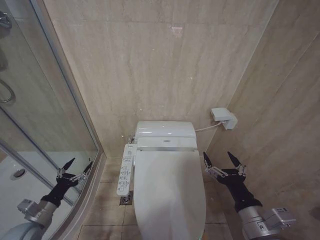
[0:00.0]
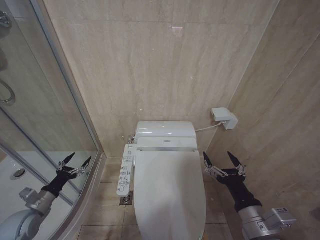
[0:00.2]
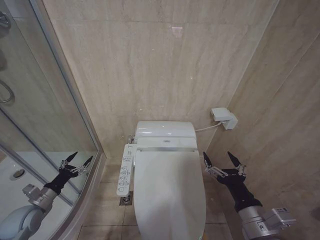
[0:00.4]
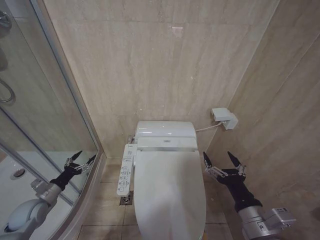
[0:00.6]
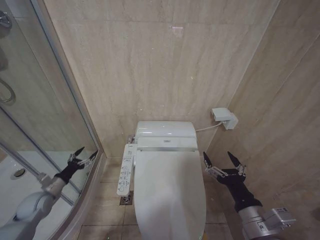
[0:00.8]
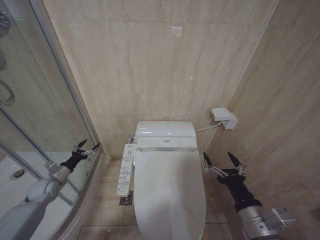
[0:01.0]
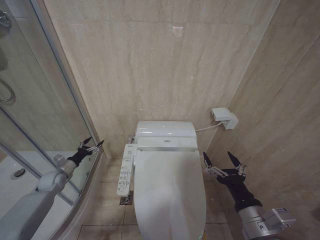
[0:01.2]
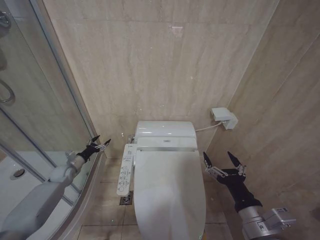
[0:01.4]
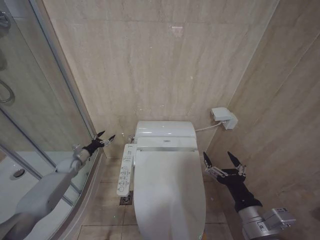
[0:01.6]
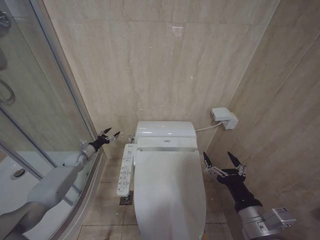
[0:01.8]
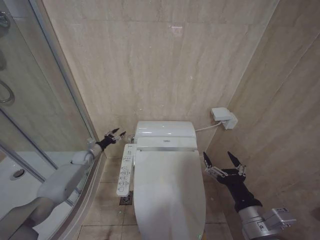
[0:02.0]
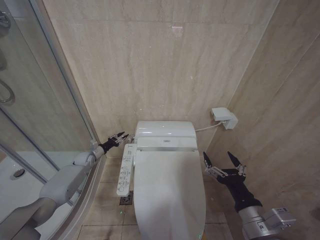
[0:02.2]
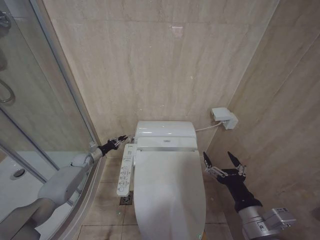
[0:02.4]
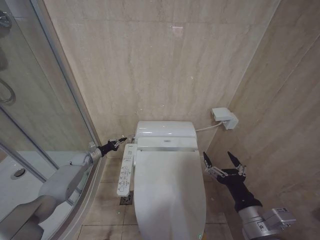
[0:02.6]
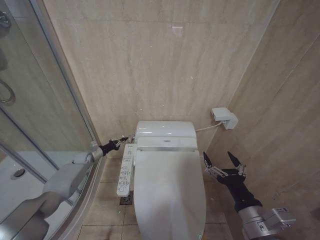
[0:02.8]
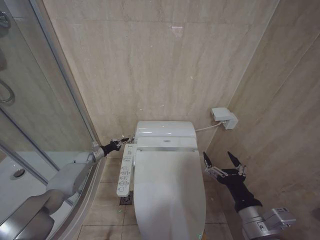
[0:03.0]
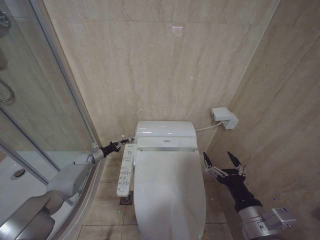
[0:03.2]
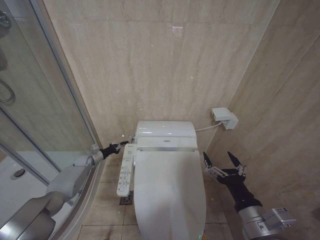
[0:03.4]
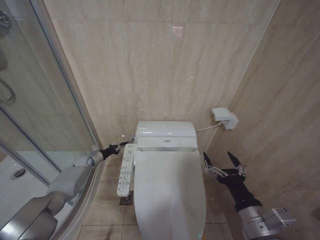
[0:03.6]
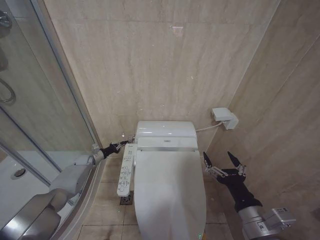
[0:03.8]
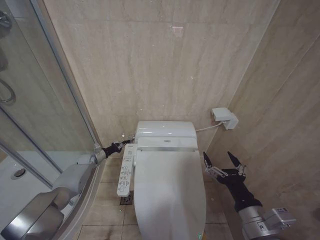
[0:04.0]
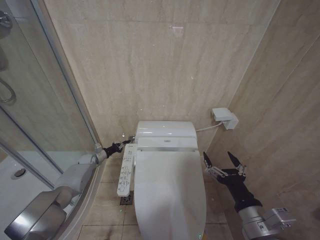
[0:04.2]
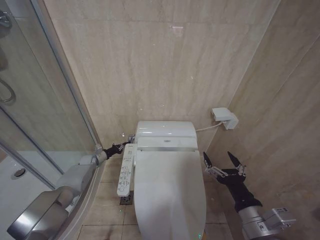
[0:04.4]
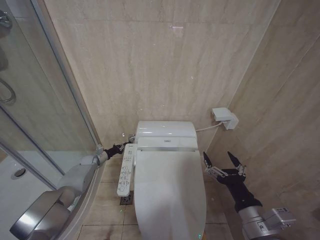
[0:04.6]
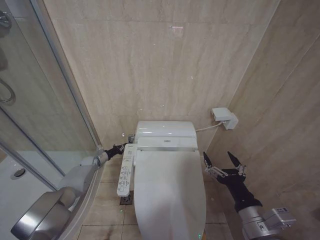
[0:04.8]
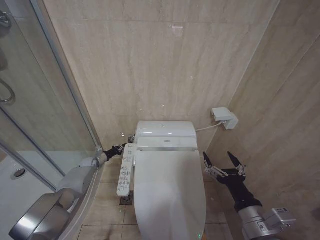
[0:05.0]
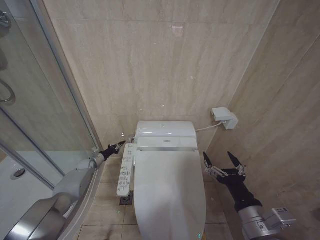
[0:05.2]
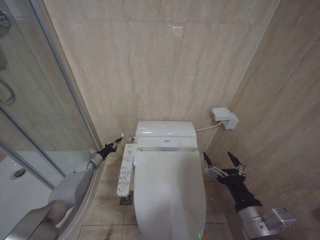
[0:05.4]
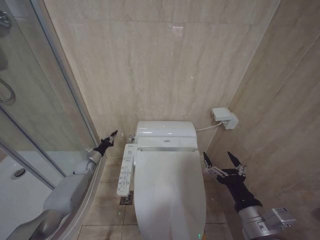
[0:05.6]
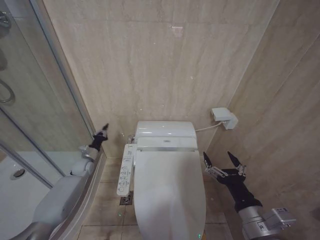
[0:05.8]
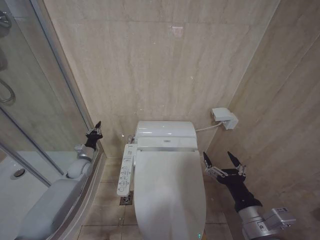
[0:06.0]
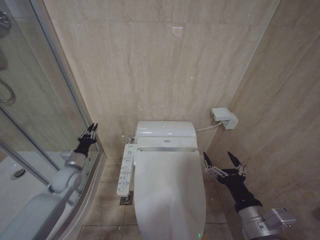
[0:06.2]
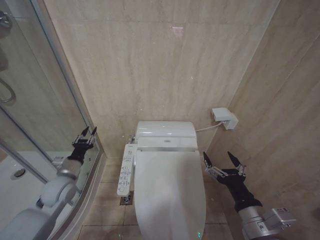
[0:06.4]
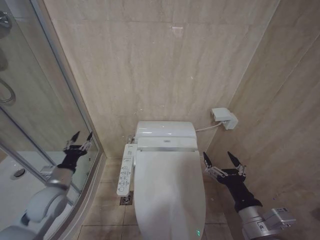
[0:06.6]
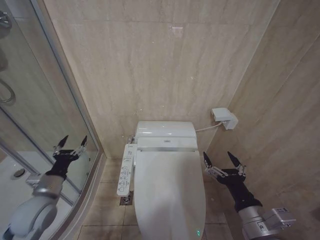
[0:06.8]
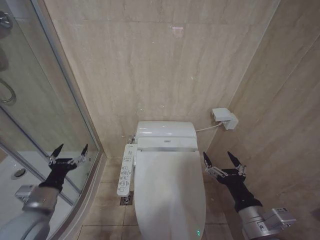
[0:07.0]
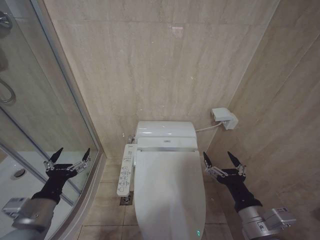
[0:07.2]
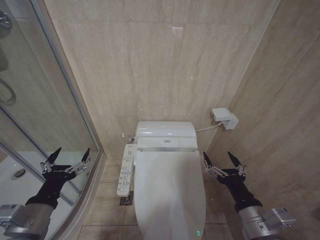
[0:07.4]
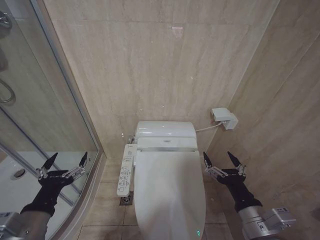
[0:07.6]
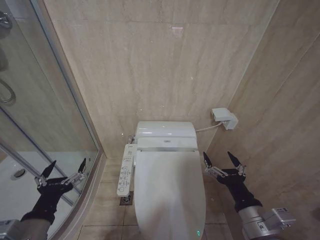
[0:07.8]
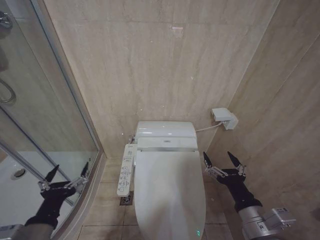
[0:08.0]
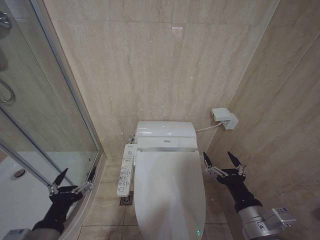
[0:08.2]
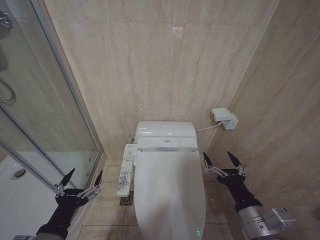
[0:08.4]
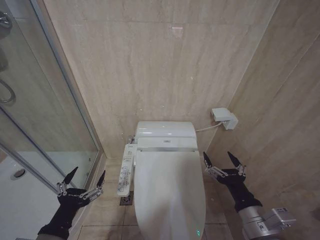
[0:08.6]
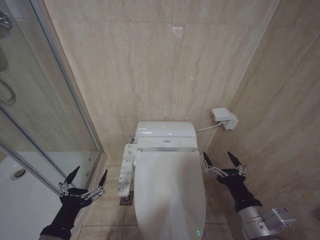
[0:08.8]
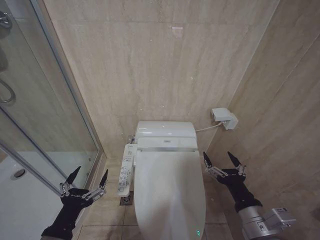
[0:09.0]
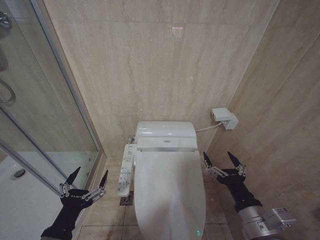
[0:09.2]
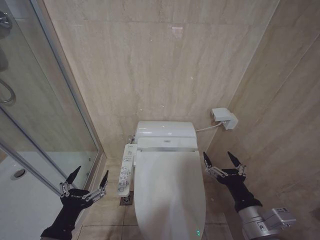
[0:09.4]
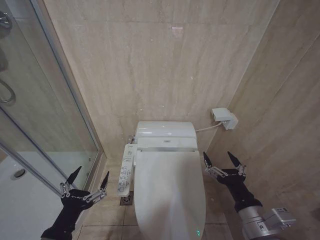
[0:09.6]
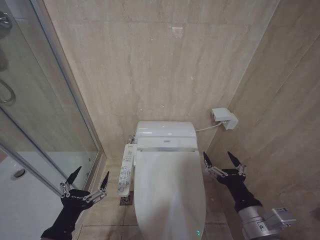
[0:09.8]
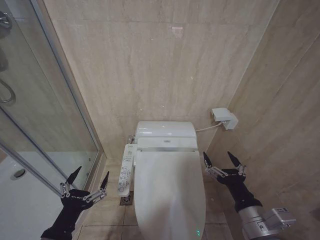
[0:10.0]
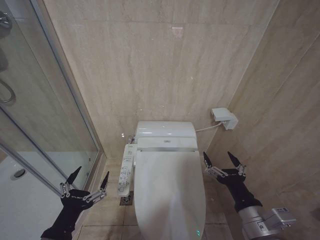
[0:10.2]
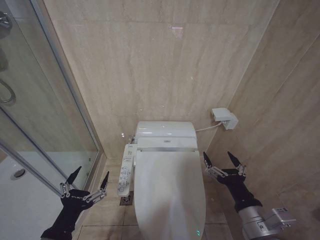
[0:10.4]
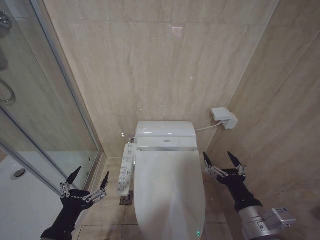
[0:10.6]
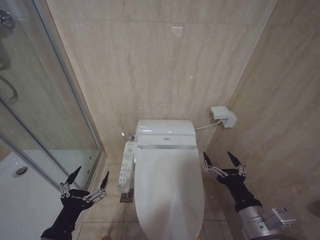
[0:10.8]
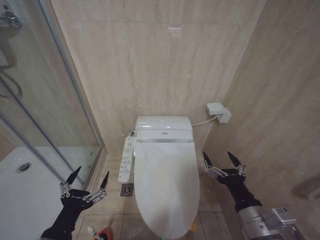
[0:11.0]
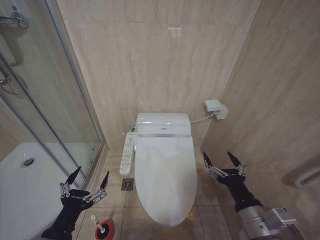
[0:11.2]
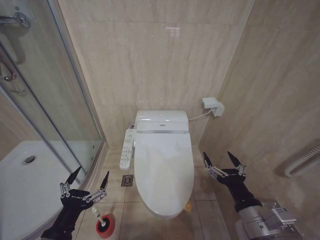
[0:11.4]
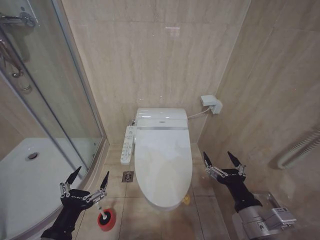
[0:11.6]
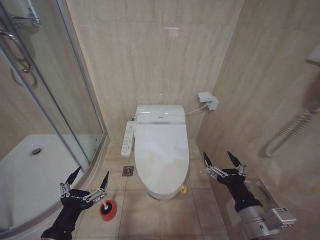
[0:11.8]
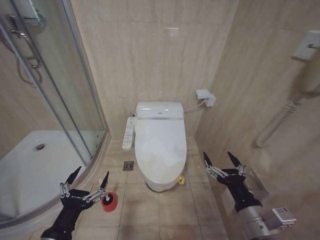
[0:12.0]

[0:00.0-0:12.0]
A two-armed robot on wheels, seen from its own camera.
Task of the whole recording: Open the toilet lid, clean the toilet bowl with a toilet brush, close the toilet lid, and flush.
0:00.0 to 0:01.6: The left gripper goes about 30 cm forward.
0:01.6 to 0:03.0: The left gripper travels forward by roughly 5 cm, and closes up.
0:03.0 to 0:04.4: The grippers move only a little.
0:04.4 to 0:06.0: The left gripper shifts about 10 cm backward and upward.
0:06.0 to 0:07.6: The left gripper heads backward and upward, covering some 35 cm, and opens its fingers.
0:07.6 to 0:09.0: The left gripper ends up approximately 5 cm from where it was.
0:09.0 to 0:10.4: Neither gripper changes place.

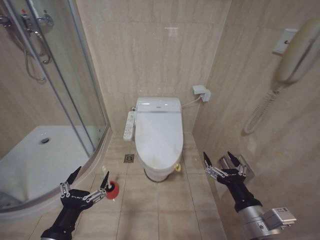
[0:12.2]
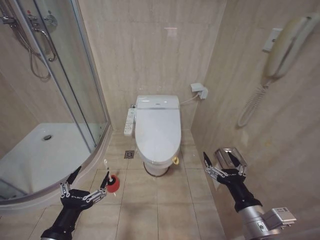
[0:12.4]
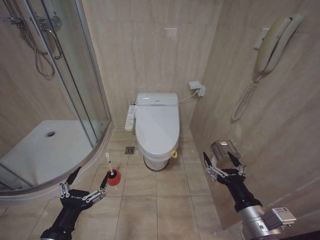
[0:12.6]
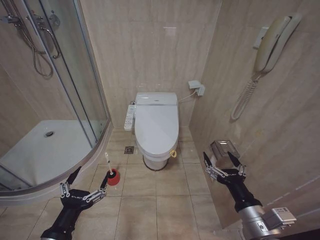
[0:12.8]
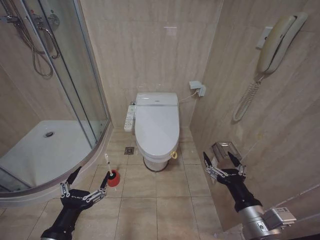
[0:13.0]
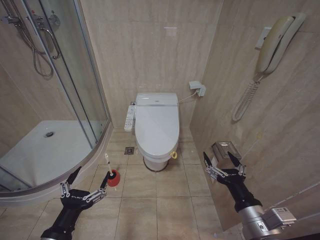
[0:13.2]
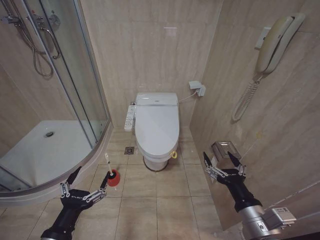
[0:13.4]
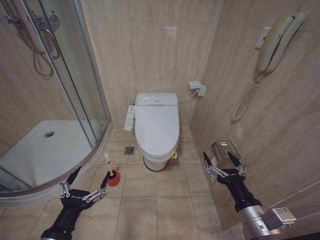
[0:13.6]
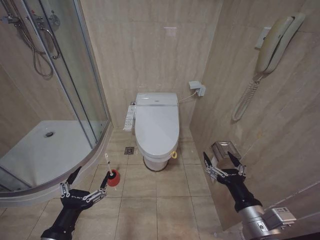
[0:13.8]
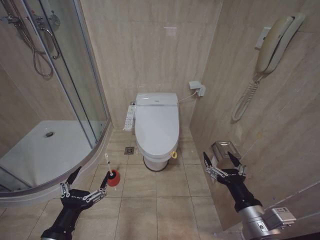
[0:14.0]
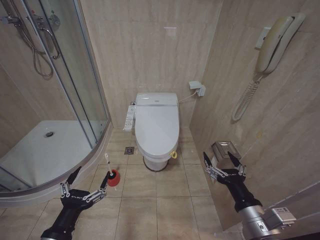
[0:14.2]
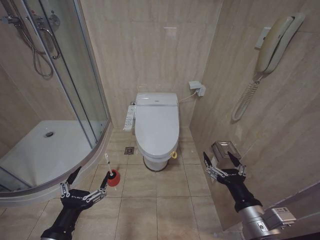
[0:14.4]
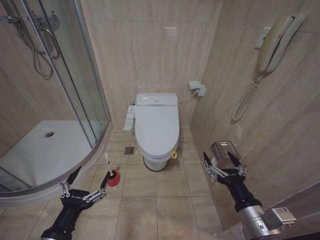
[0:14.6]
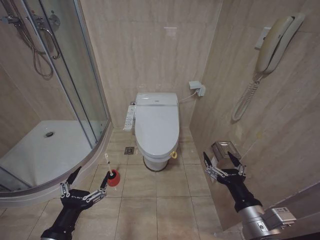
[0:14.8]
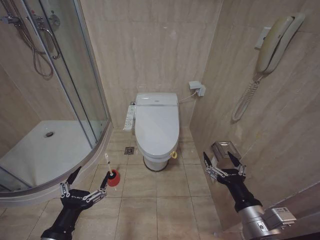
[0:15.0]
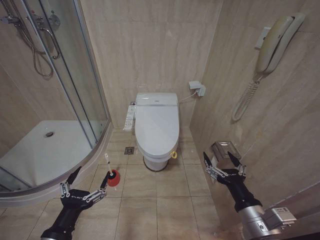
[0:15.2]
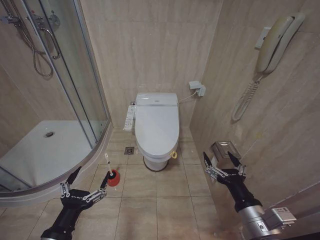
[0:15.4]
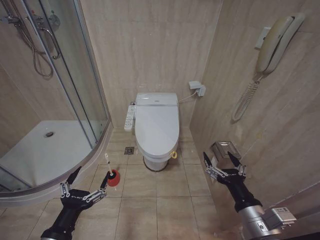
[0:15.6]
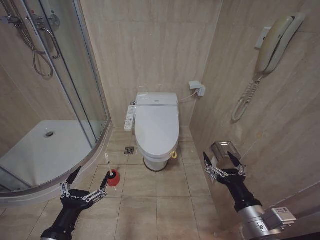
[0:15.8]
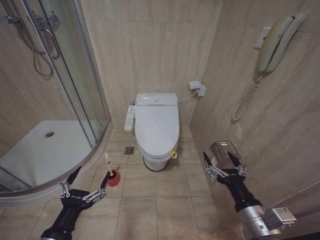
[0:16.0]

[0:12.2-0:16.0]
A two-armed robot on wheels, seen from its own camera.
Task of the whole recording: Open the toilet lid, clean the toilet bowl with a toilet brush, close the toilet lid, and flush.
0:12.2 to 0:16.0: The two grippers keep their place.
